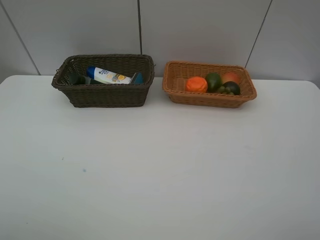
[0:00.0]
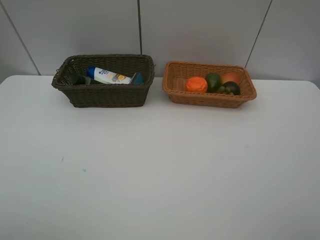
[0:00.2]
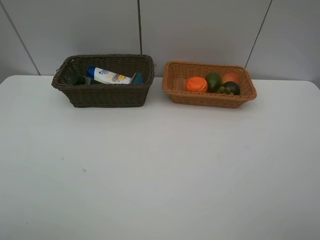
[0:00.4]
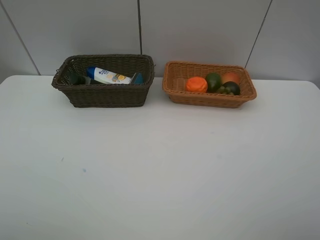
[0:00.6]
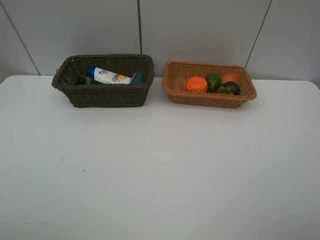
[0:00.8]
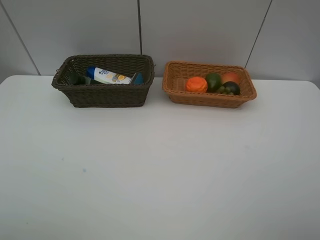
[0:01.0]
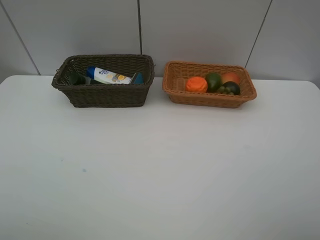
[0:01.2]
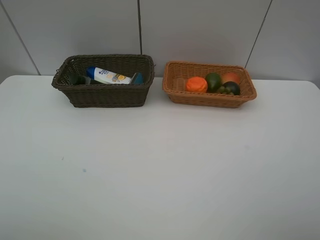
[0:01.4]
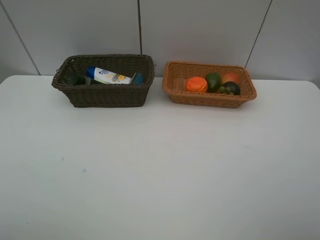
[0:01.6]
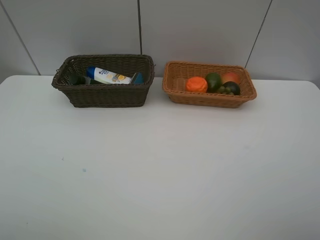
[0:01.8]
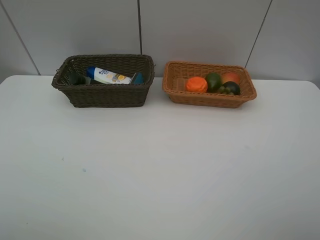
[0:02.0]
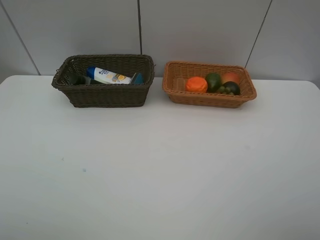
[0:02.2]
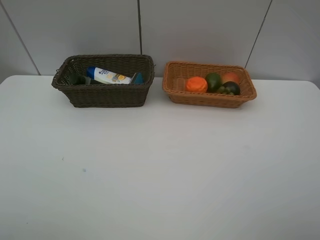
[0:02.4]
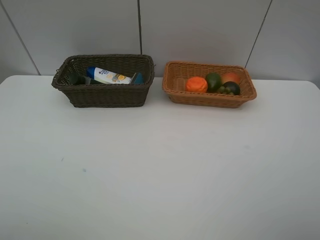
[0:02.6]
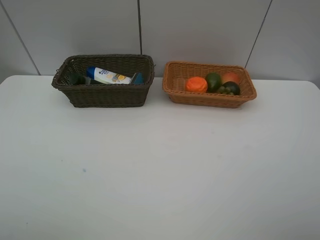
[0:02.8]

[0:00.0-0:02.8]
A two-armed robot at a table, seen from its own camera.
Task of the whole recording: Place multiple objects separately in different baskets.
1.4 to 2.8 s: Neither gripper changes place.

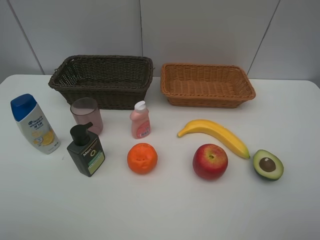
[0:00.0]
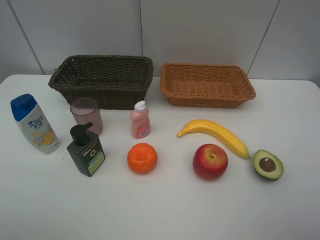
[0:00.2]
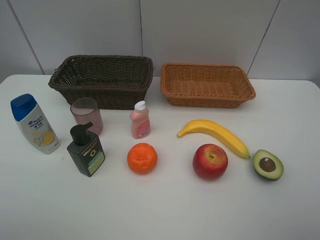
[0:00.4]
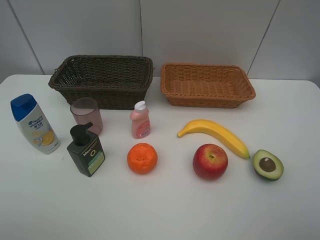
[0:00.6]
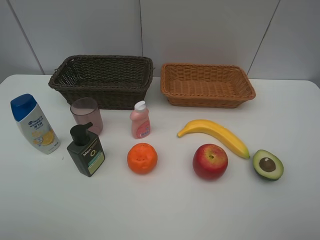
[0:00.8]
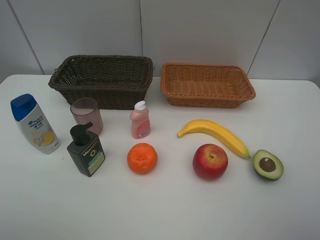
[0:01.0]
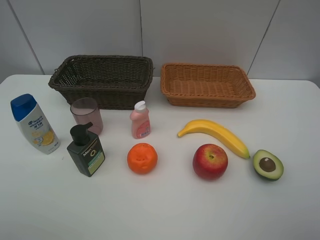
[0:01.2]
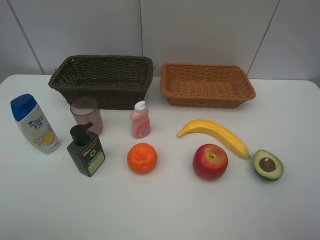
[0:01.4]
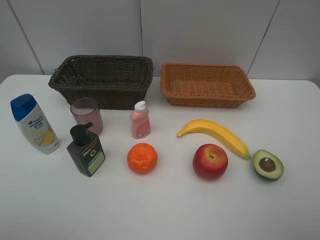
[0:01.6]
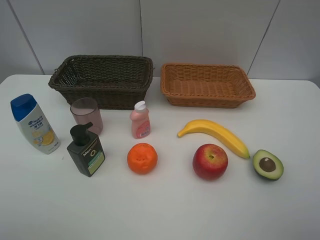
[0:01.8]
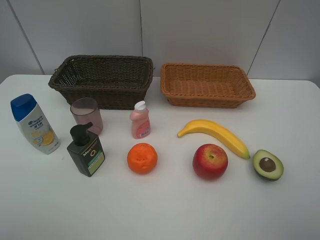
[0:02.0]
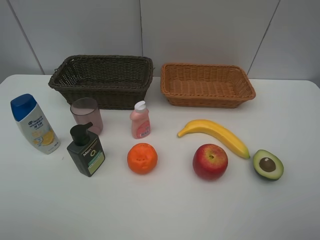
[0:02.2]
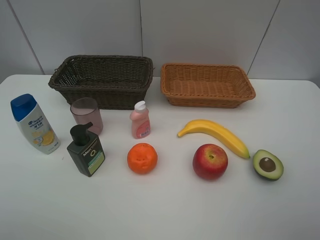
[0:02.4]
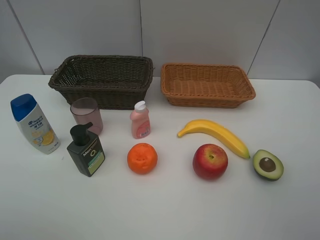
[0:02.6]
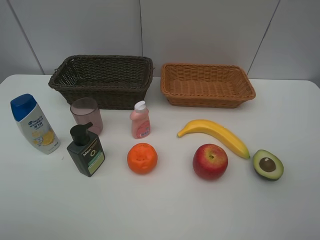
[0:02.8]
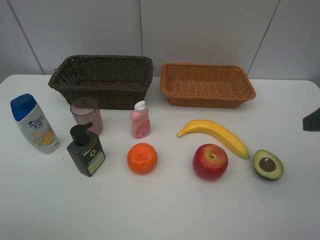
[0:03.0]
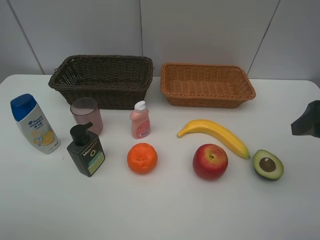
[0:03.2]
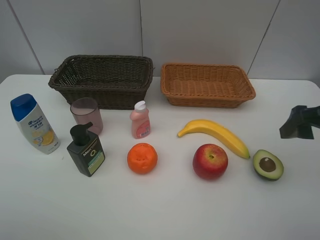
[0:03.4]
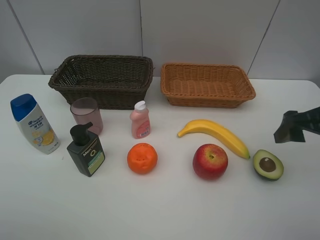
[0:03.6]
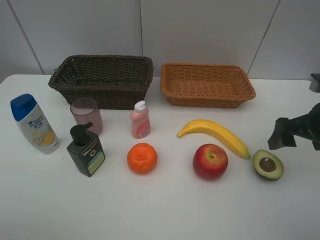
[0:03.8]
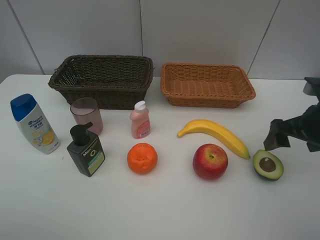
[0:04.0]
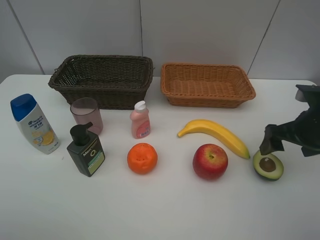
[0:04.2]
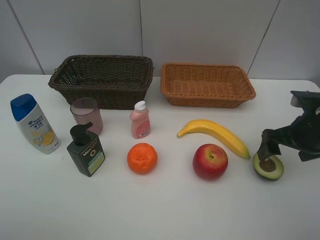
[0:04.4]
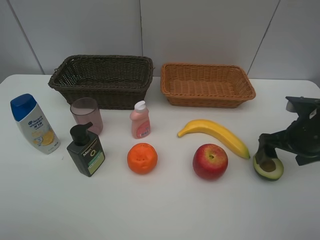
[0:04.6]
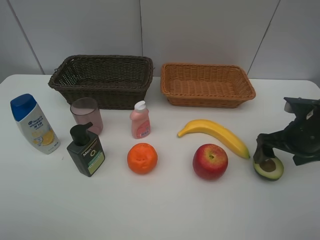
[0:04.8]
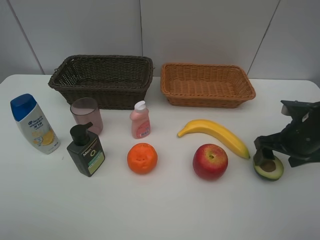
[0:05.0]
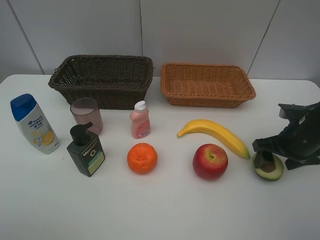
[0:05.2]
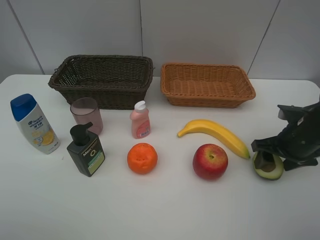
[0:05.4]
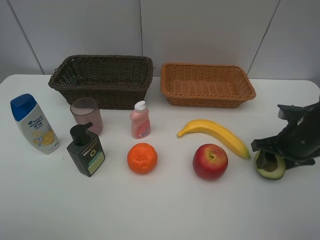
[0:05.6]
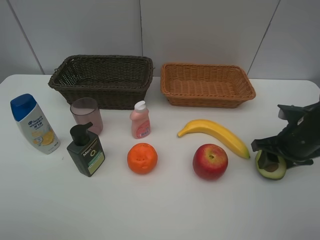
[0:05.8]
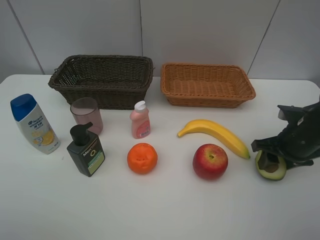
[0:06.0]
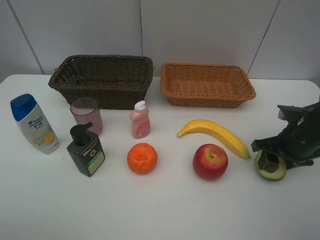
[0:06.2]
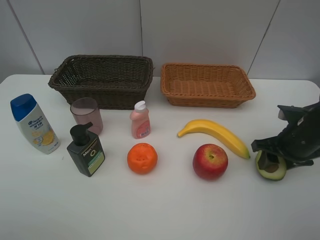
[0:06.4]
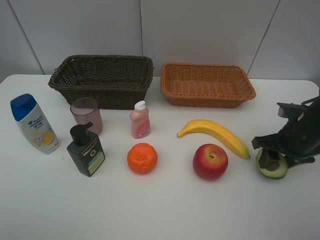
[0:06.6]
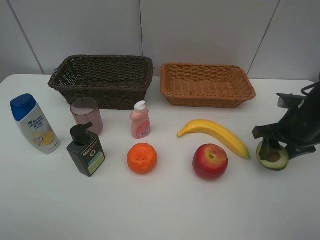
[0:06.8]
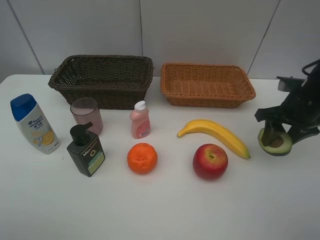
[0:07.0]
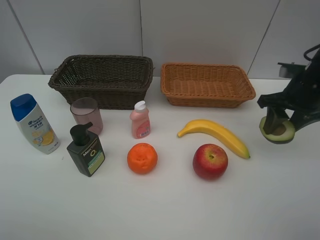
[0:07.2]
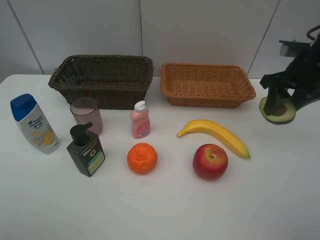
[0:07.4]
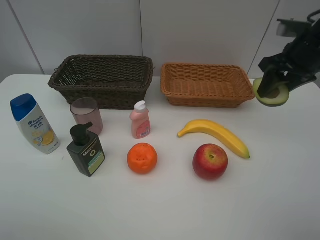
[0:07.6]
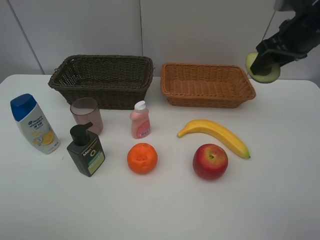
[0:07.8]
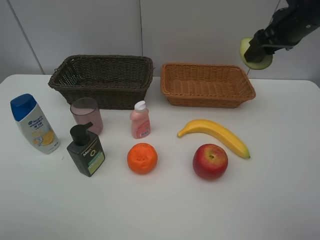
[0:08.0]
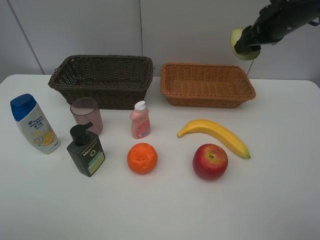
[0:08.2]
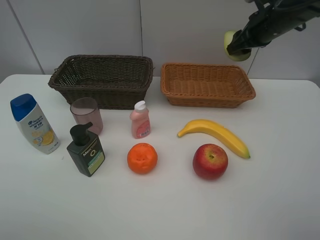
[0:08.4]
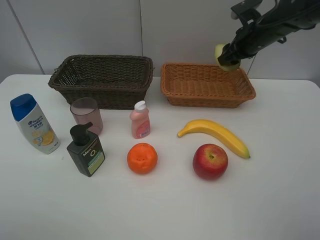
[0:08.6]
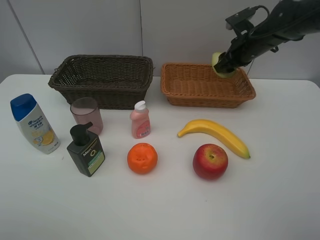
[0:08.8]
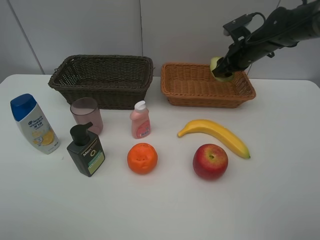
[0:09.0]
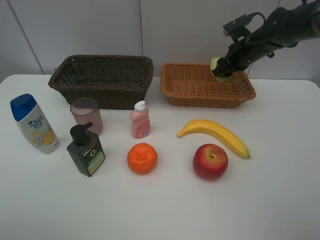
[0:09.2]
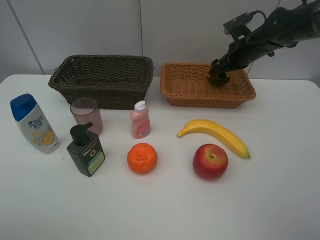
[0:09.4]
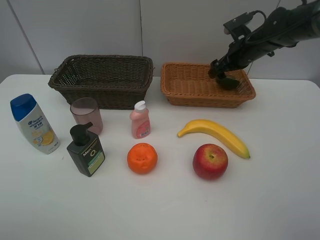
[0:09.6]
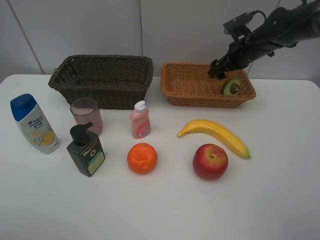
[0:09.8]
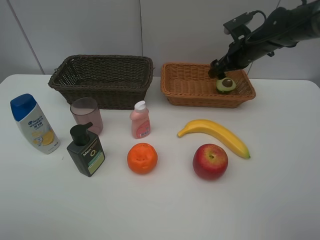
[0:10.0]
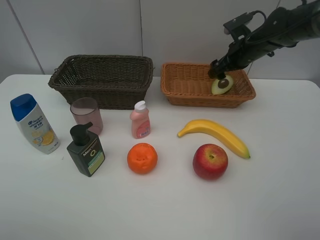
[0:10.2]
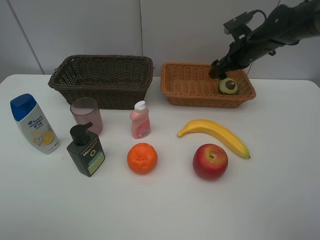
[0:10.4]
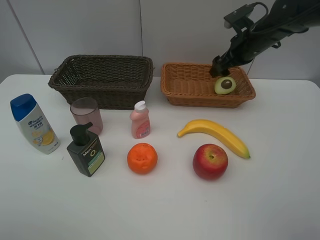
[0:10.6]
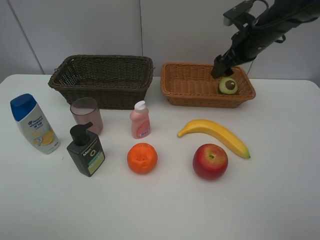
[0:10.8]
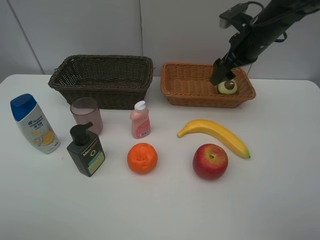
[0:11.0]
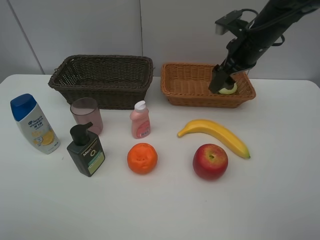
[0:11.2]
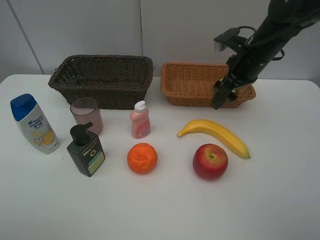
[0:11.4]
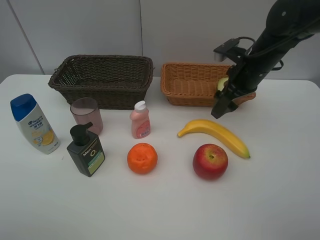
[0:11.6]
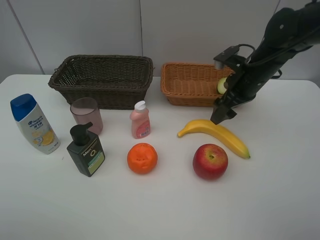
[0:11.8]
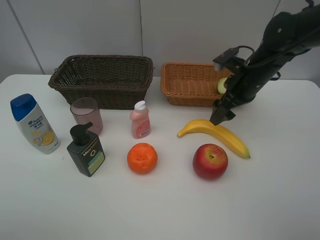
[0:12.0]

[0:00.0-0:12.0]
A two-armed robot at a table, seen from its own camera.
Task of the whole recording: Place multiple objects separately in different baskets.
Step, 0.0 to 6.8 s: Pick up the avocado with right gripper.
Step, 7.0 to 9.8 s: Place the avocado in the light basket with right gripper.
0.0 to 1.6 s: Both grippers stay put.
3.0 to 4.4 s: The right gripper shifts approximately 15 cm downward and forward.
4.4 to 6.0 s: The right gripper closes up.
6.0 to 7.6 s: The right gripper moves upward and forward, about 15 cm.
7.6 to 9.0 s: The right gripper heads forward and downward, covering some 15 cm.
9.0 to 10.4 s: The right gripper opens.
10.4 to 12.0 s: The right gripper goes some 10 cm backward.

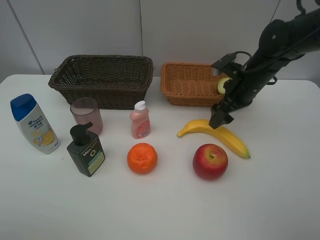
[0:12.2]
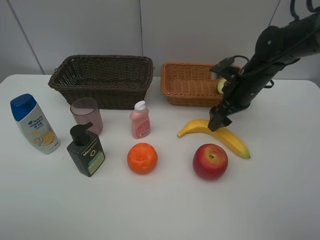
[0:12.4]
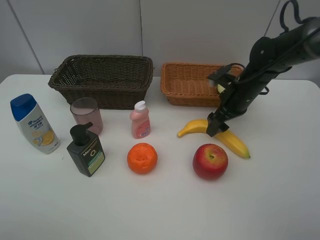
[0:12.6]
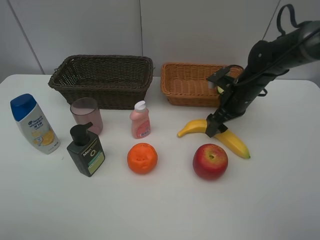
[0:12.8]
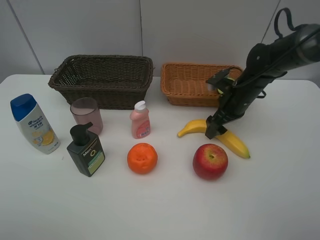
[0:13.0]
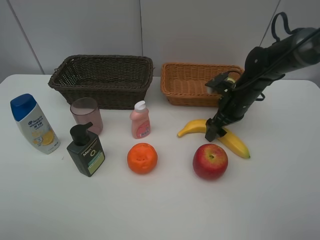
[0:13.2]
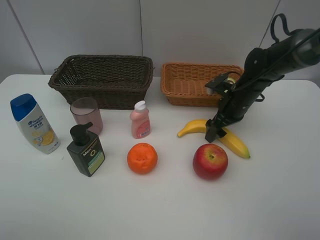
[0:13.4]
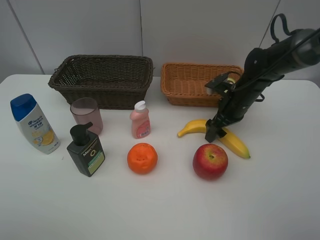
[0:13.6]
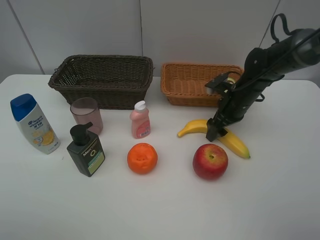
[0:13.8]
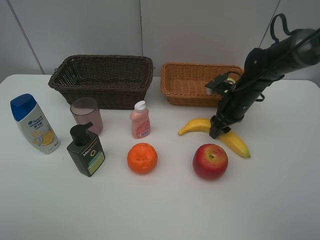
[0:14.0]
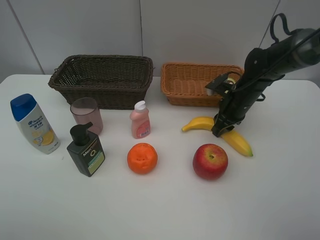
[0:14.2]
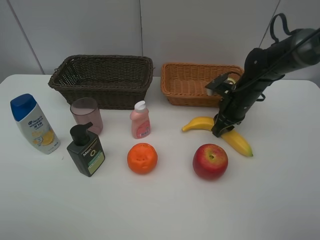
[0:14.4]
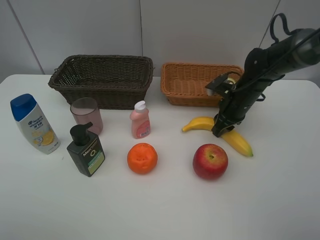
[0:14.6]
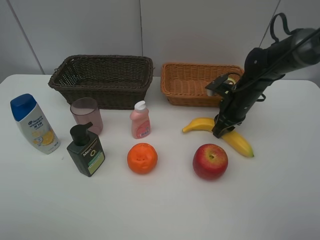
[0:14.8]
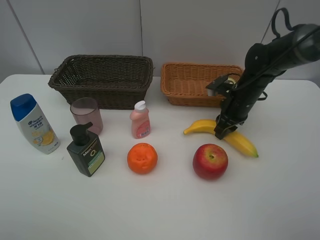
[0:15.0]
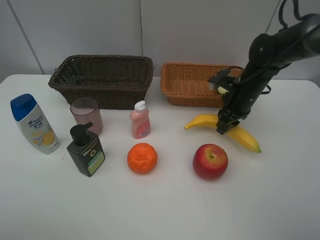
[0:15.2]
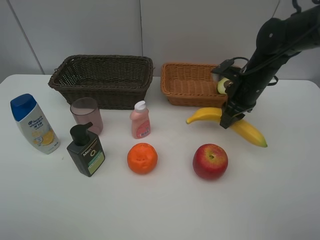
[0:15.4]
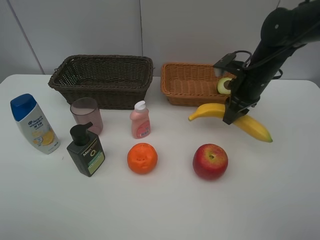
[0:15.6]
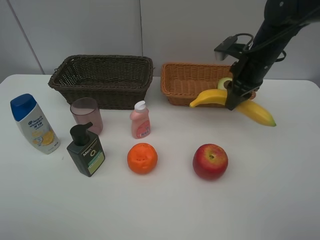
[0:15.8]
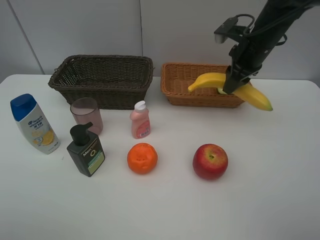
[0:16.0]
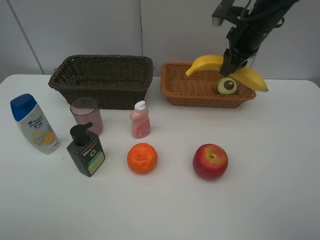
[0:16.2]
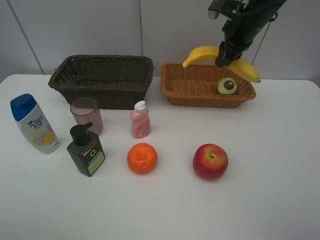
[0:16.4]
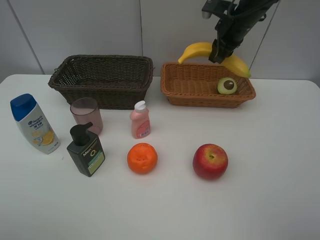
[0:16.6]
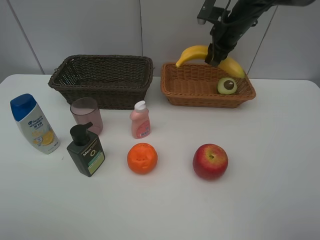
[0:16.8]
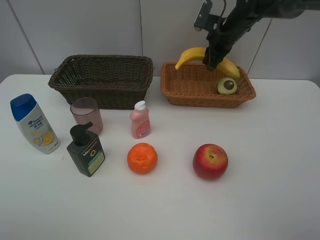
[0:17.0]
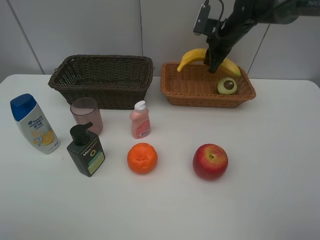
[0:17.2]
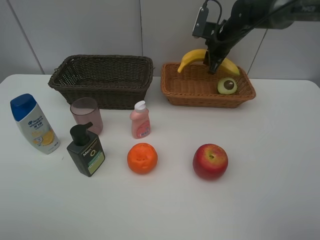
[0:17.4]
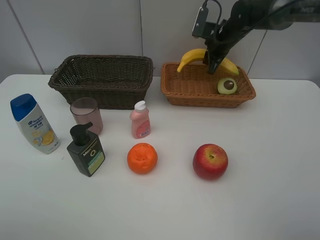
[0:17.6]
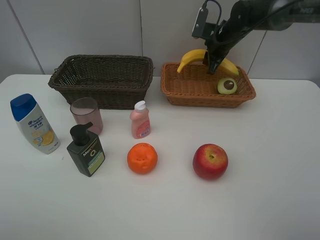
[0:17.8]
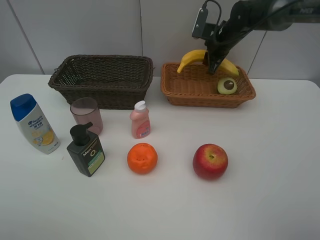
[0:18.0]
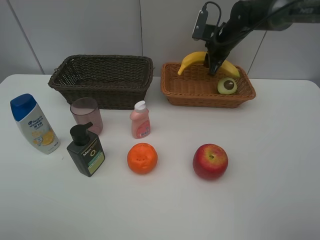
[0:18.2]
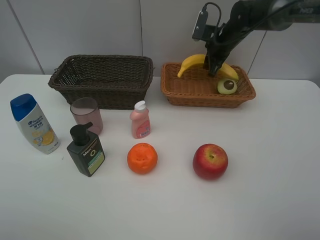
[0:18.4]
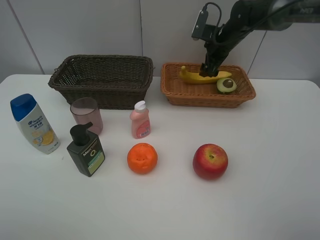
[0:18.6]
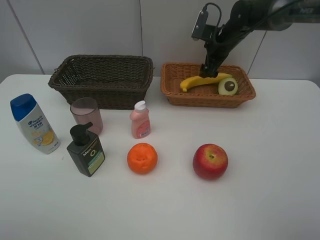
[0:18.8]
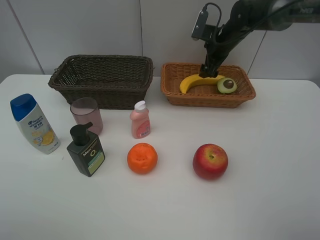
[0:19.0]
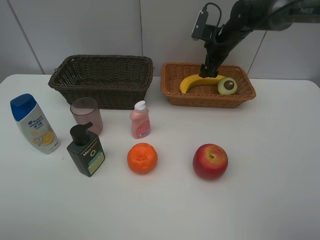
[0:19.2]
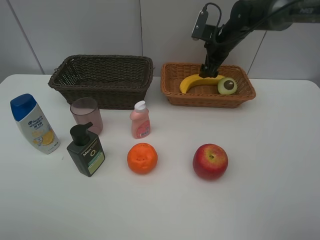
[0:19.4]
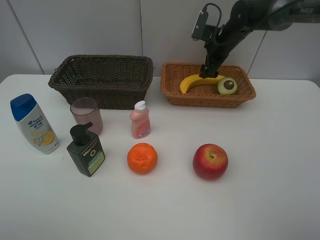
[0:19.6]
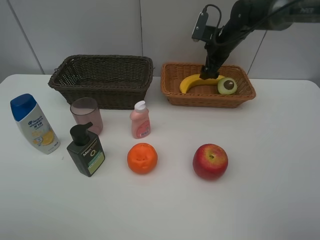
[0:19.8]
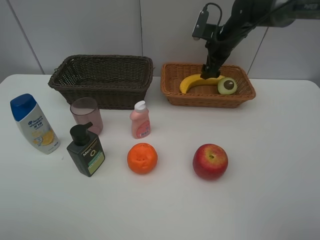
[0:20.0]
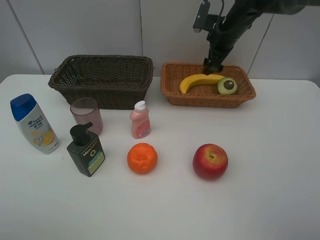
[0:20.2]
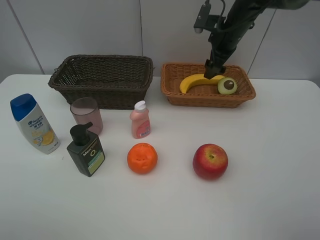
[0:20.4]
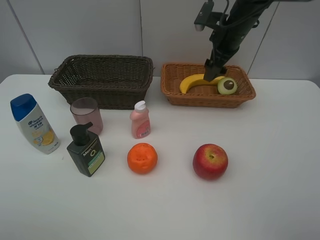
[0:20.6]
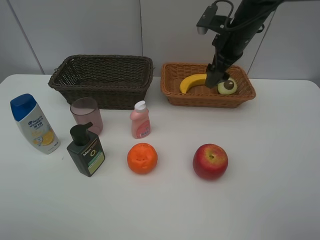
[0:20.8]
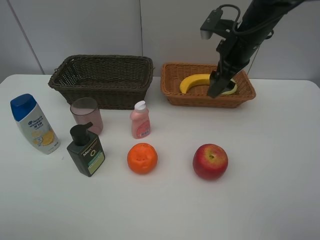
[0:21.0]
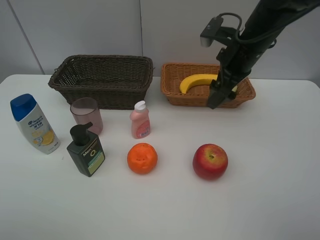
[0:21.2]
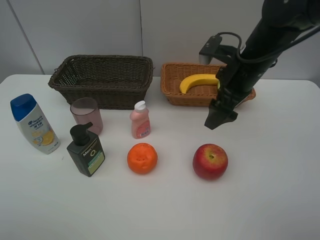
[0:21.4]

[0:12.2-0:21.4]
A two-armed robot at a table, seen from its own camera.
Task of the whole recording: Place multiple objects separately in different baskets.
Step, 12.2 to 15.2 s: Pick up banana with right gripper.
Step, 15.4 to 18.8 s: Place the banana in the light basket with right gripper.
12.2 to 13.8 s: The right gripper heads downward, covering some 5 cm.
13.8 to 15.2 s: The right gripper closes up.
15.2 to 16.8 s: The right gripper travels forward and upward by approximately 15 cm.
16.8 to 18.4 s: The right gripper changes place by roughly 5 cm.
18.4 to 19.8 s: The right gripper opens its fingers.
19.8 to 21.4 s: The right gripper shifts roughly 20 cm backward.
